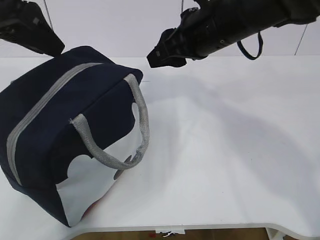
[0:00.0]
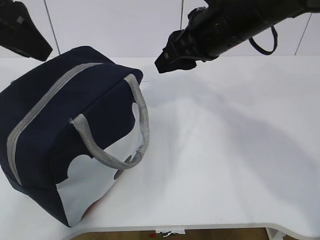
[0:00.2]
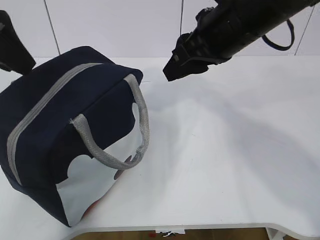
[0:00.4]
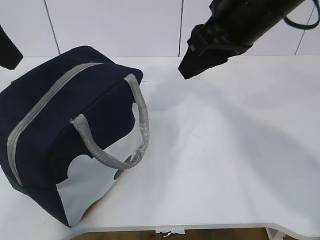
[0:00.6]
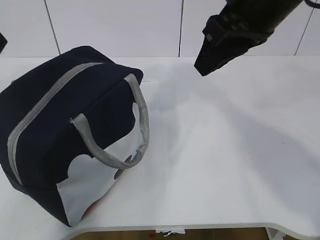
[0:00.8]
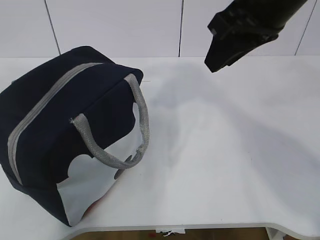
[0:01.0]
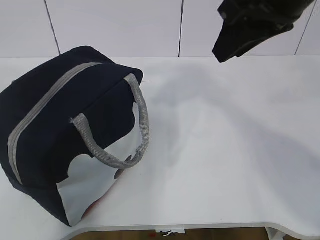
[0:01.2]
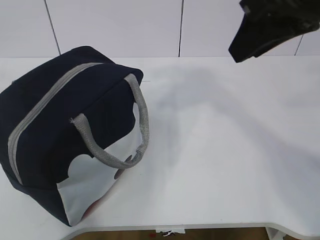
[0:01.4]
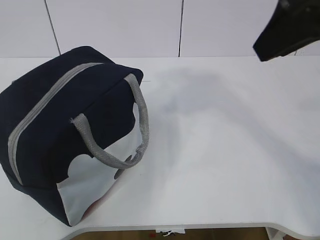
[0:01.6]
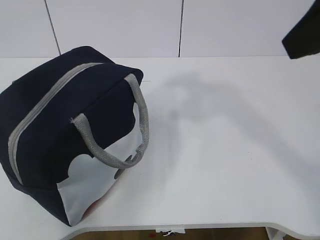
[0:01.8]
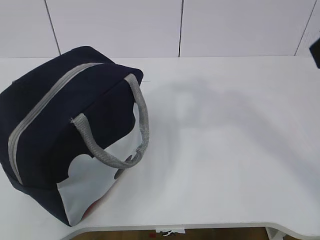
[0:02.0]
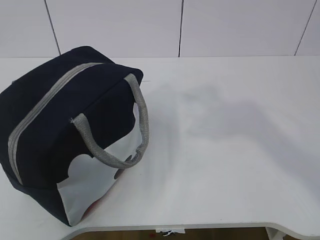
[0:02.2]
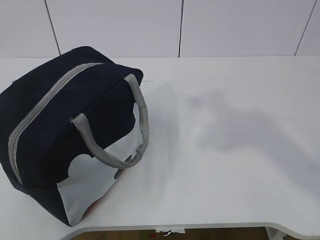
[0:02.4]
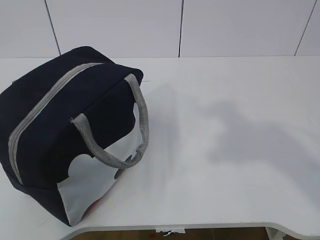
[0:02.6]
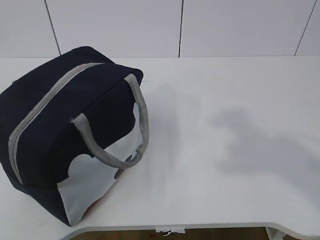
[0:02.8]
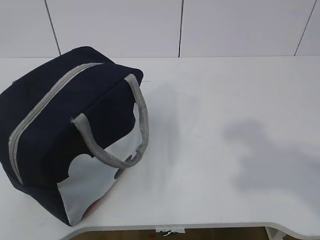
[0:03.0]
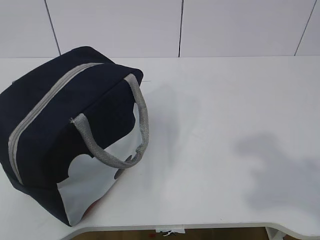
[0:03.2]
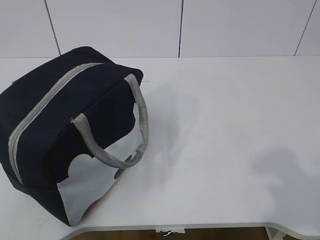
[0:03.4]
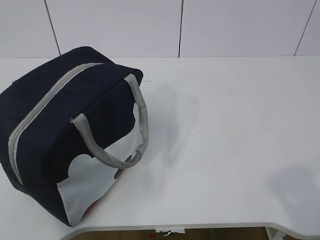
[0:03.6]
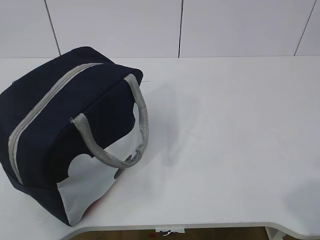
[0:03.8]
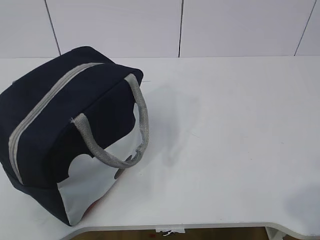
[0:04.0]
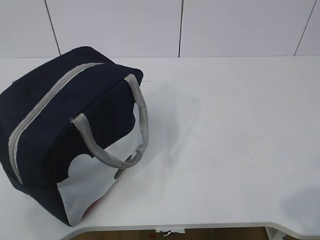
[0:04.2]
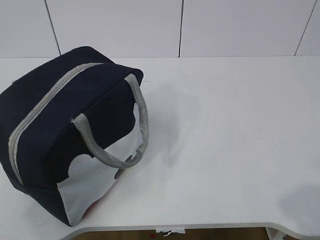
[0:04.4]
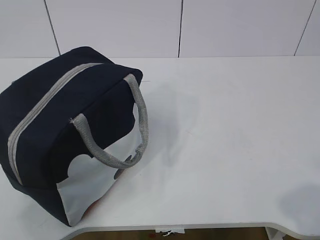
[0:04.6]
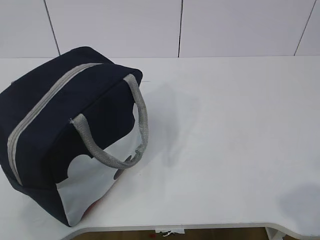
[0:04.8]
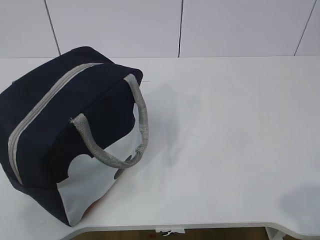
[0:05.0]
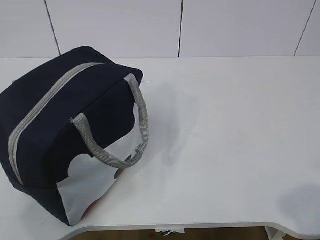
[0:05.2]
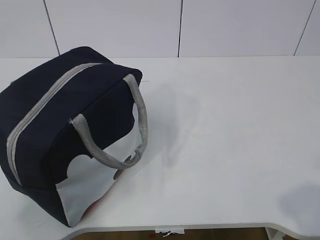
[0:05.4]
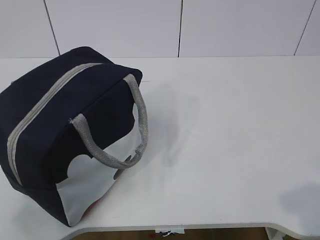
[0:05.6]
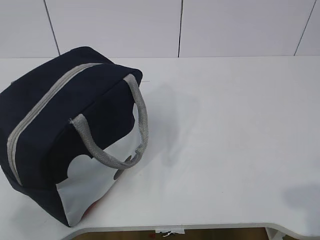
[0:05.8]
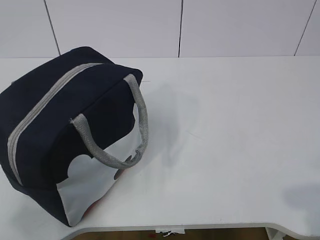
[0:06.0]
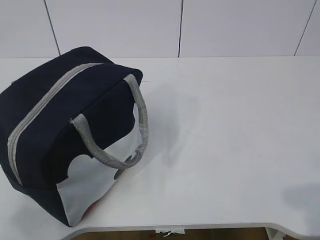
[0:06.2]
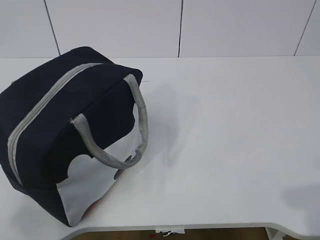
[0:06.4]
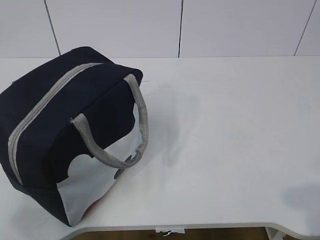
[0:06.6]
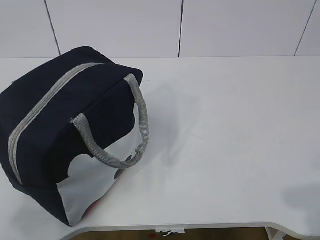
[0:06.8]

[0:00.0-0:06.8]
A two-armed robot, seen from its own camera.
0:00.0 to 0:01.4: The left gripper travels backward and upward by approximately 20 cm. Meanwhile the right gripper heads backward, upward and to the right, covering approximately 15 cm.
0:01.4 to 0:02.8: The right gripper travels backward and to the right by some 20 cm.
0:04.0 to 0:05.4: The left gripper changes place by approximately 5 cm.
0:05.4 to 0:06.8: The grippers make only small movements.

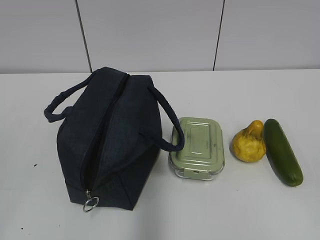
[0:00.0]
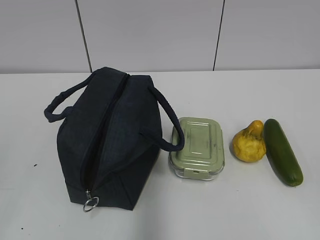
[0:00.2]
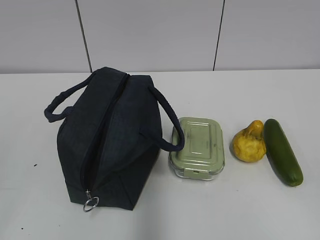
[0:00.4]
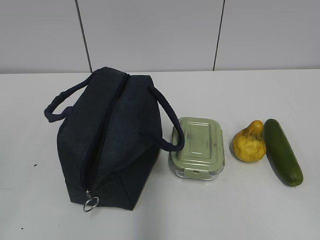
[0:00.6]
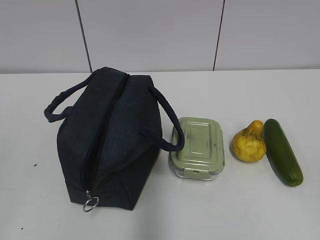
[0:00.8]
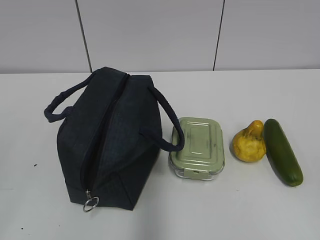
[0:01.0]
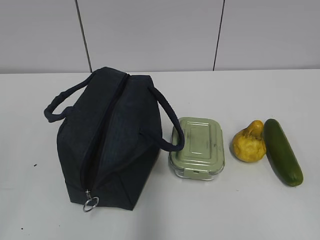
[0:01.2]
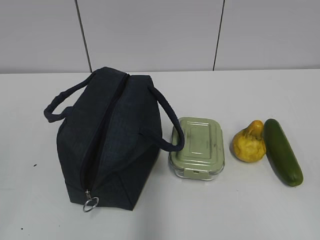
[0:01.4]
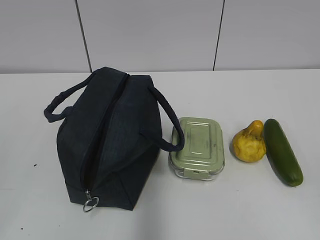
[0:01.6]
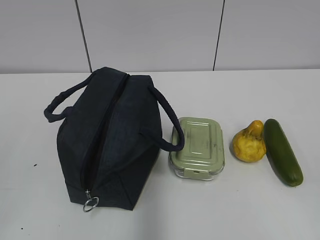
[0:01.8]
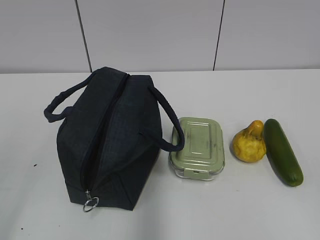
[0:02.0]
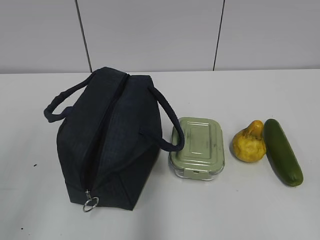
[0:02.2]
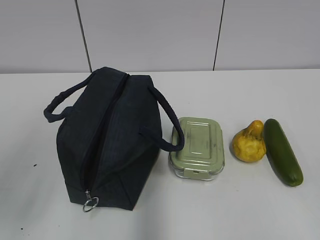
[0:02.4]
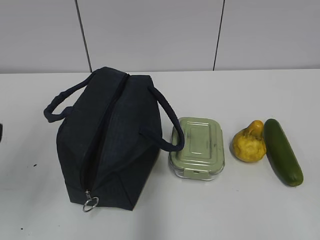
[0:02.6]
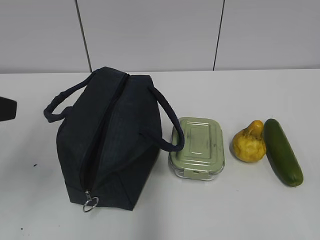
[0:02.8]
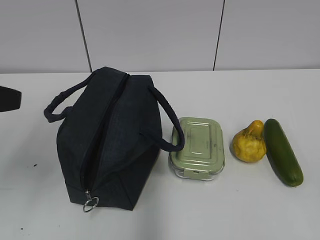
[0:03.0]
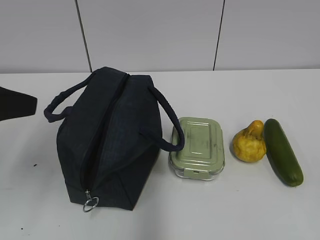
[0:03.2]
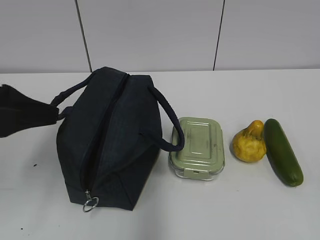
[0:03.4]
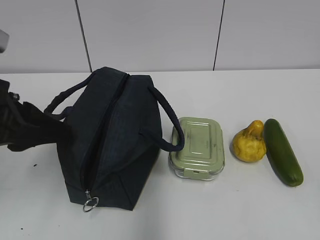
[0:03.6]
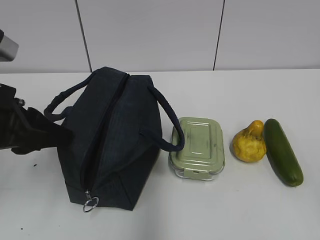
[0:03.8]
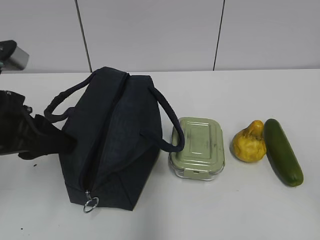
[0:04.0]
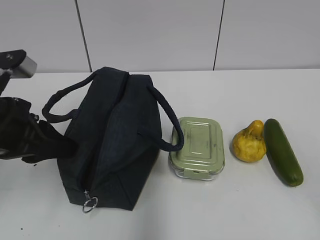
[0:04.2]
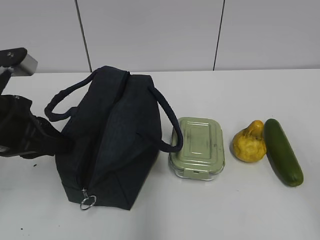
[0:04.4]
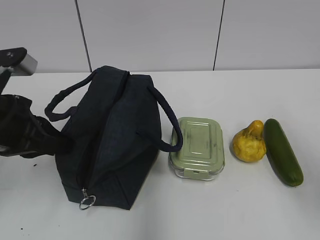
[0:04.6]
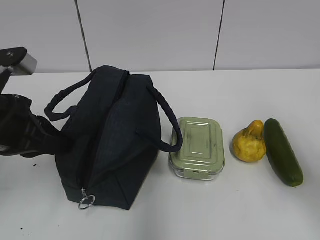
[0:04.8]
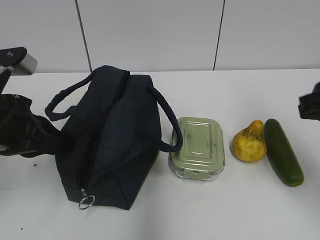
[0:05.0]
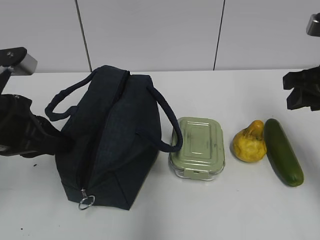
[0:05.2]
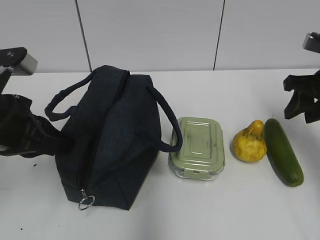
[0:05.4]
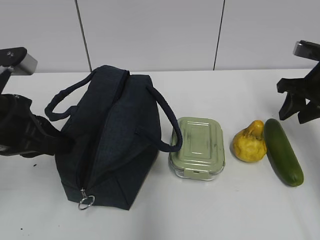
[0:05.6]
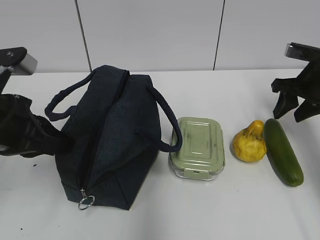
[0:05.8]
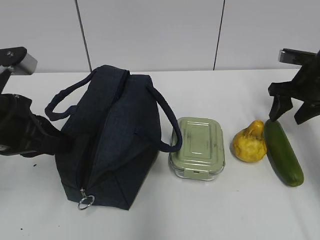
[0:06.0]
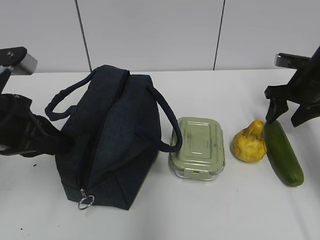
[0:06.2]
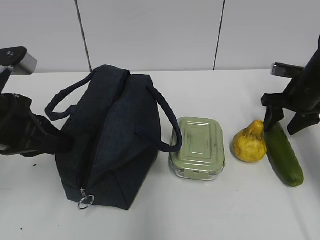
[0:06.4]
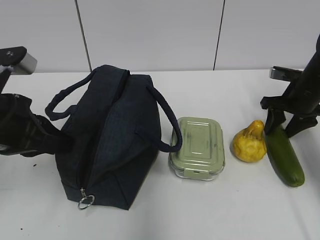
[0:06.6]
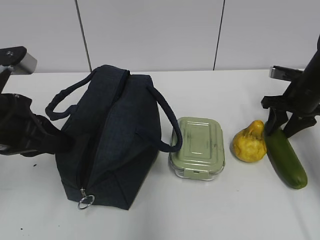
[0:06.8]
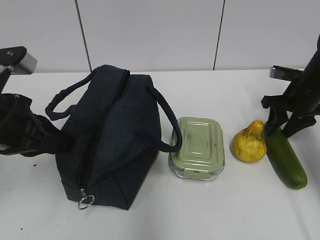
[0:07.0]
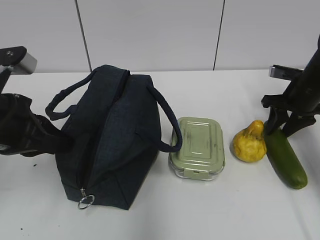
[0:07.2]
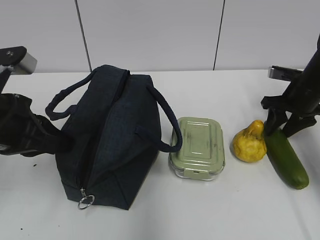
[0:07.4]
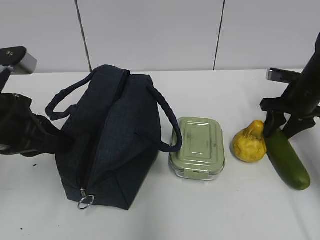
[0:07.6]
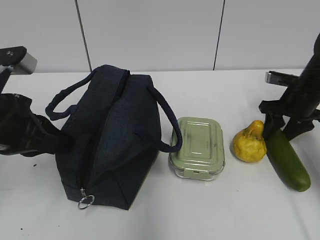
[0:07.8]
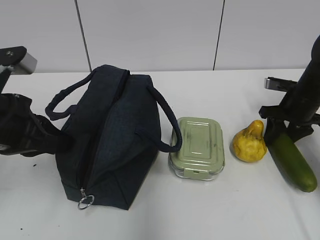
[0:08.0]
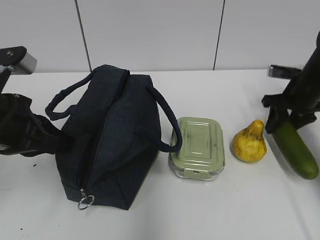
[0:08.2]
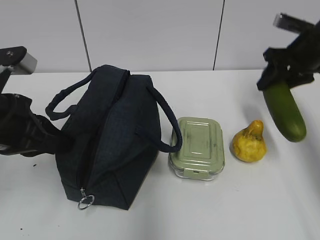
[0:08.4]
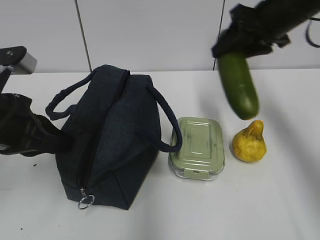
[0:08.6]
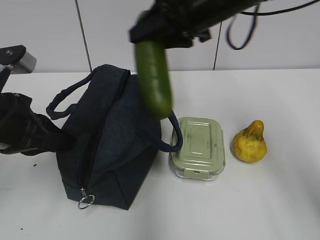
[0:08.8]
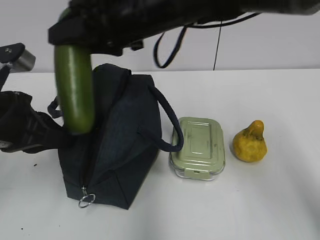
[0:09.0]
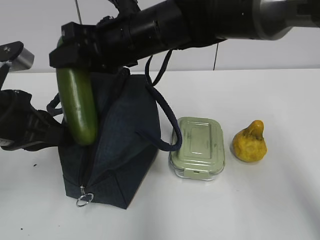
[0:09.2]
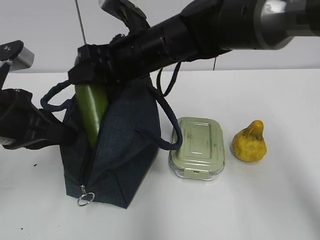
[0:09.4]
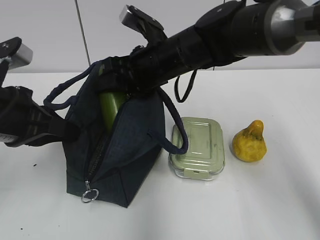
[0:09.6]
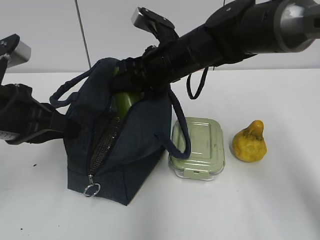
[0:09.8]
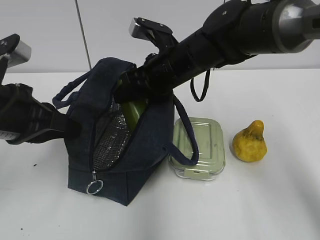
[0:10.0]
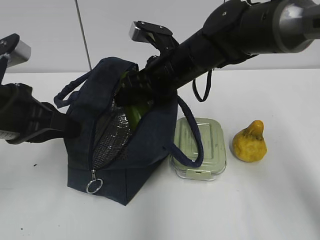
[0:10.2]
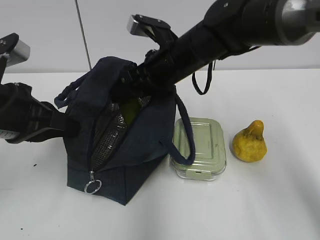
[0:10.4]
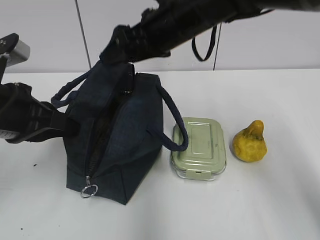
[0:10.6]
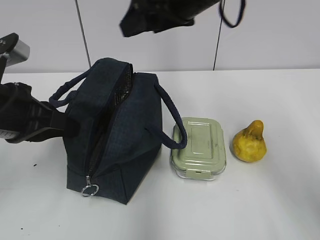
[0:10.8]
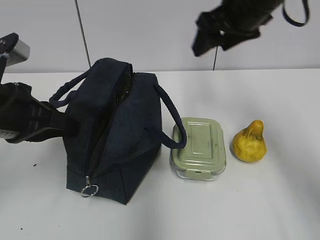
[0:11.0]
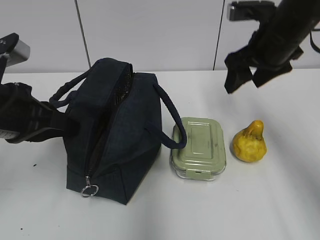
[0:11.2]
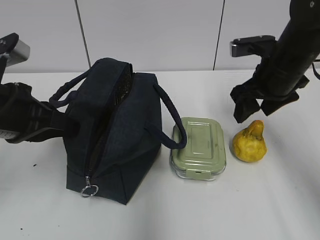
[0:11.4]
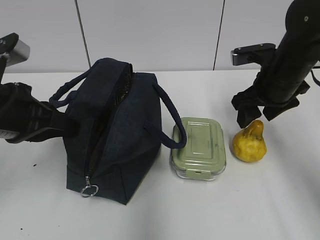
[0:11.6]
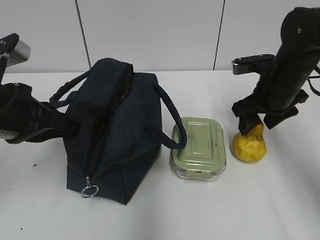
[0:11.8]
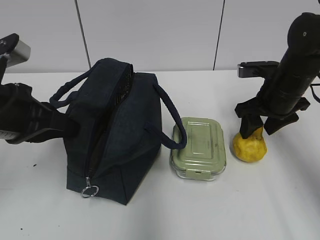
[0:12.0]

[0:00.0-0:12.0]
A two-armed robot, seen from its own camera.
Step, 0:00.0 to 0:07.8: Grab the cucumber with your right hand.
Step, 0:09.2 to 0:10.4: Place it into the bag with your right hand.
0:01.6 to 0:03.0: The left gripper goes about 20 cm forward.
0:03.0 to 0:04.4: The right gripper goes about 5 cm forward, and opens its fingers; the left gripper shifts some 10 cm downward and forward, and closes up.
0:04.4 to 0:06.0: The right gripper goes approximately 35 cm forward.
0:06.0 to 0:07.6: The grippers stay close to where they were, moving slightly.
0:07.6 to 0:09.0: The right gripper heads to the left and upward, covering some 35 cm.
0:09.0 to 0:10.4: The right gripper heads downward, covering some 10 cm, and opens.
0:10.4 to 0:12.0: The right gripper shifts approximately 20 cm to the right.

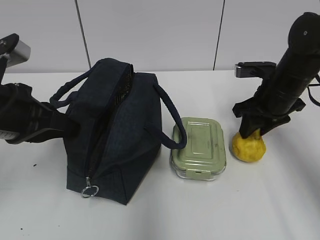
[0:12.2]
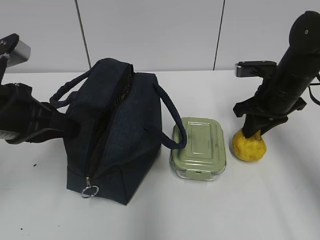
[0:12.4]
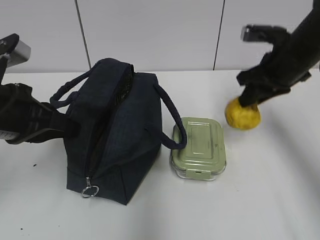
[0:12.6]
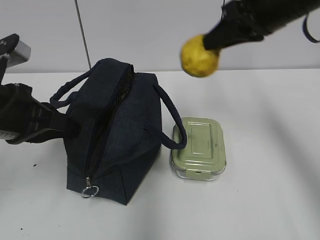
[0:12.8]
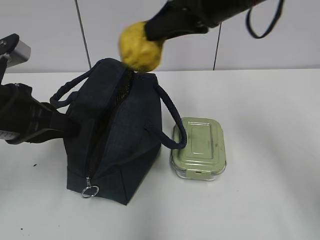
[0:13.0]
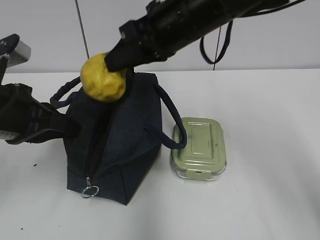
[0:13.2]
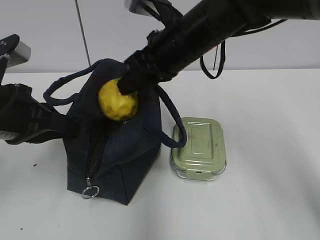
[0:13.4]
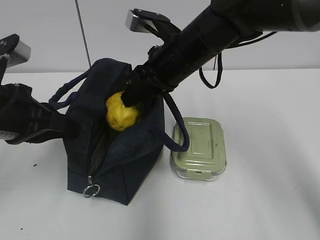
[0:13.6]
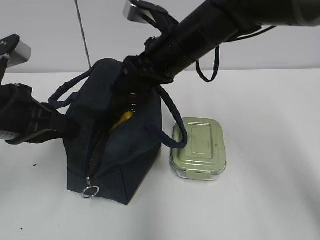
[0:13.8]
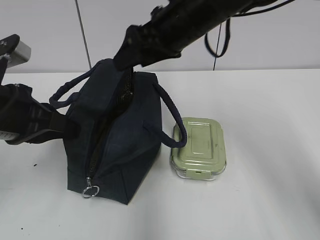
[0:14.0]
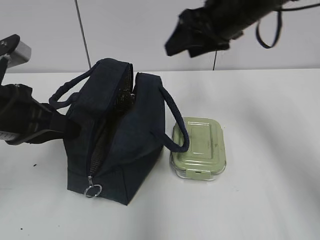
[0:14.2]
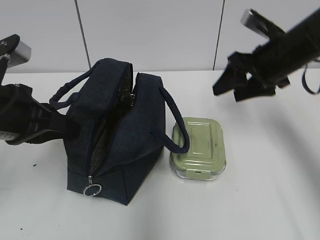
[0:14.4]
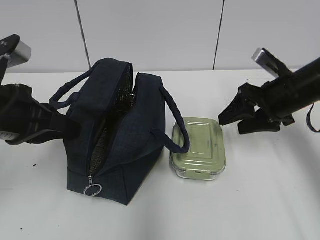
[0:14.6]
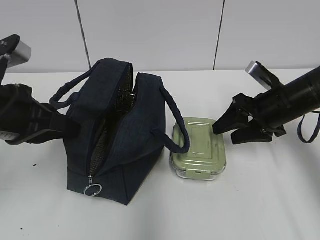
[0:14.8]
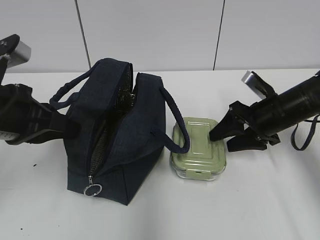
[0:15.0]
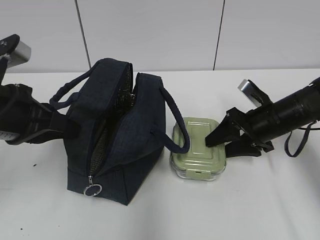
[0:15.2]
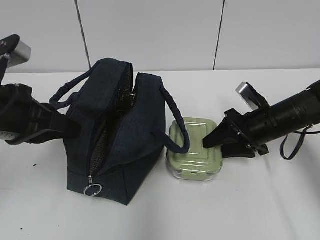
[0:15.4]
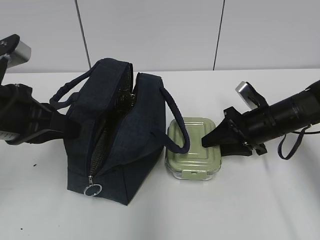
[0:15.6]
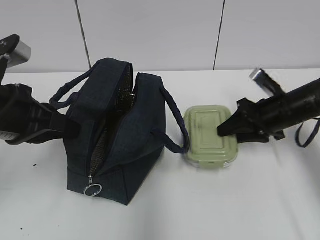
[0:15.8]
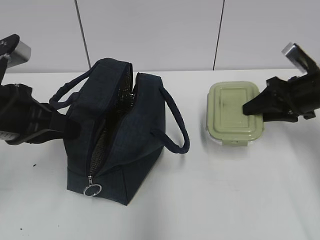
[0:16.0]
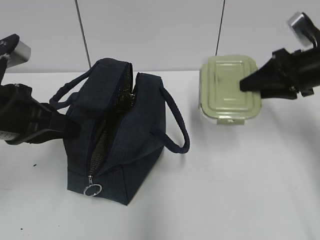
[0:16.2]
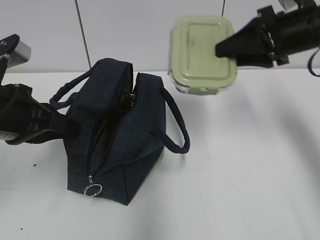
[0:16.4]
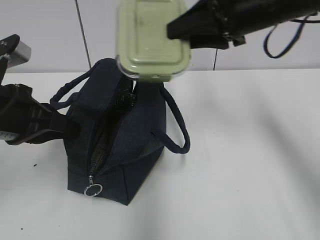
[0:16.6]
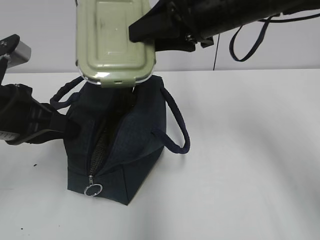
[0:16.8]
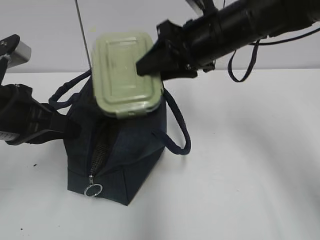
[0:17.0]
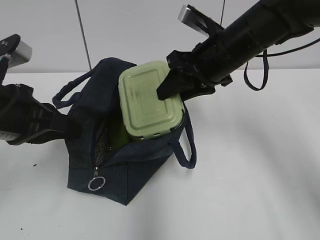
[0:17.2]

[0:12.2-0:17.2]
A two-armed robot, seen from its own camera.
Step, 0:12.4 to 0:13.8: Place it into the bag with your right hand.
Step, 0:14.0 to 0:15.4: Grab the lunch box with your right hand.
0:12.2 to 0:13.8: The right gripper goes about 20 cm to the left and upward.
0:13.8 to 0:15.6: The right gripper travels to the right and downward by some 25 cm.
0:15.6 to 0:17.2: The right gripper travels upward and to the left by approximately 20 cm.
